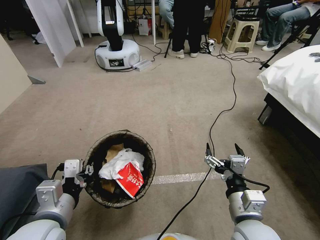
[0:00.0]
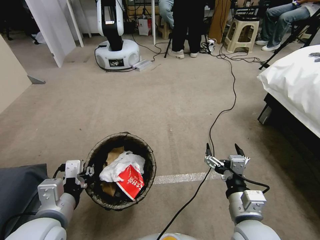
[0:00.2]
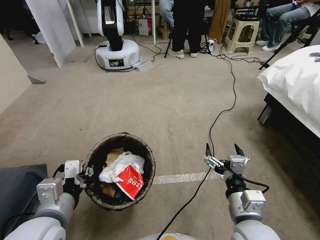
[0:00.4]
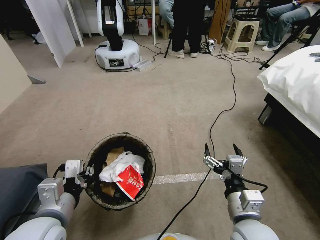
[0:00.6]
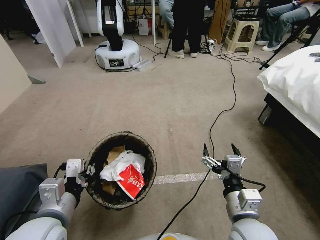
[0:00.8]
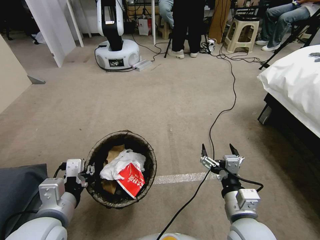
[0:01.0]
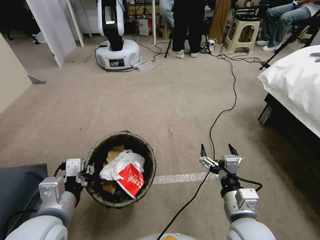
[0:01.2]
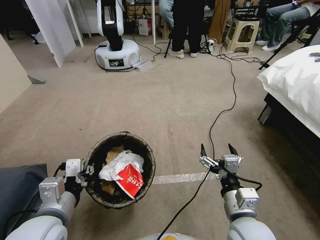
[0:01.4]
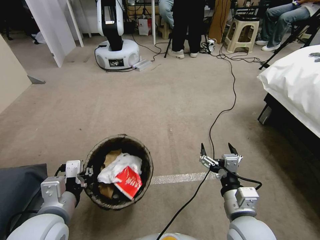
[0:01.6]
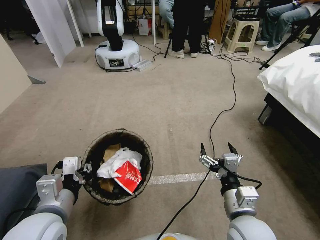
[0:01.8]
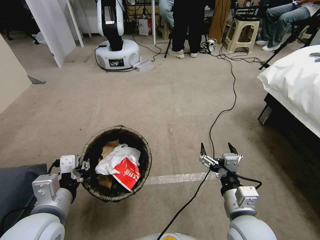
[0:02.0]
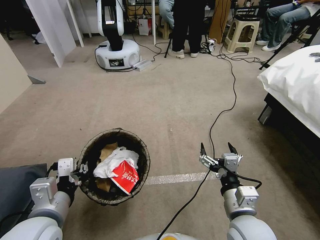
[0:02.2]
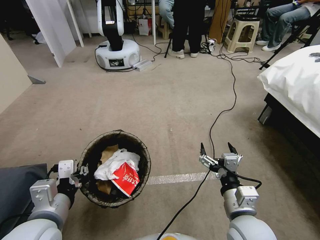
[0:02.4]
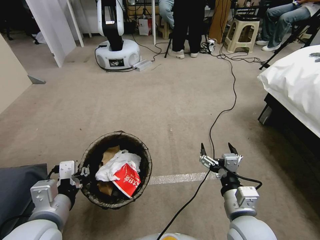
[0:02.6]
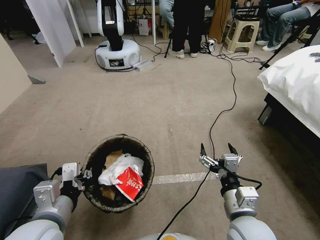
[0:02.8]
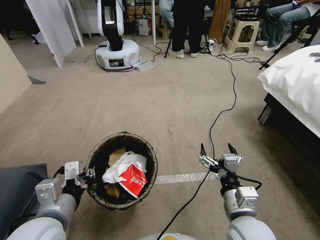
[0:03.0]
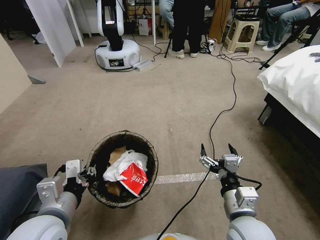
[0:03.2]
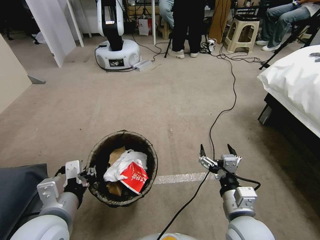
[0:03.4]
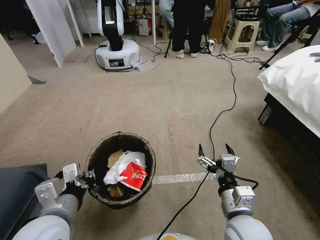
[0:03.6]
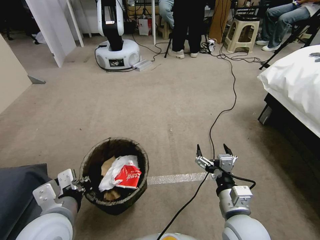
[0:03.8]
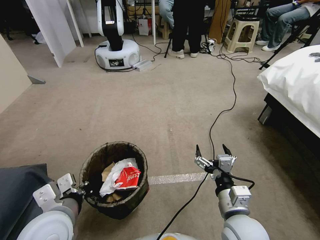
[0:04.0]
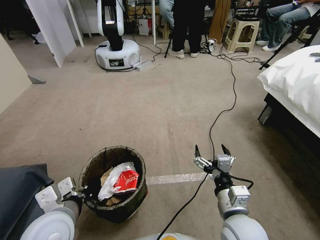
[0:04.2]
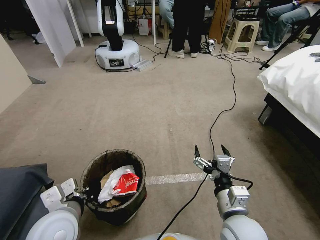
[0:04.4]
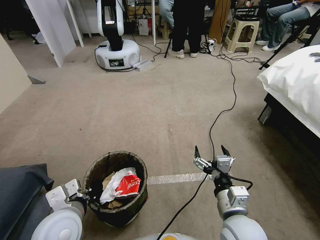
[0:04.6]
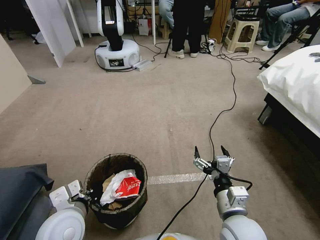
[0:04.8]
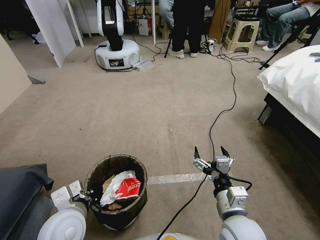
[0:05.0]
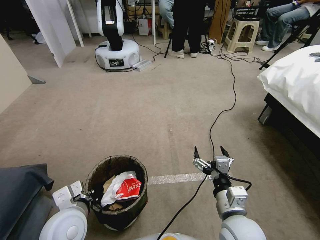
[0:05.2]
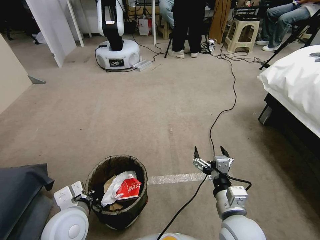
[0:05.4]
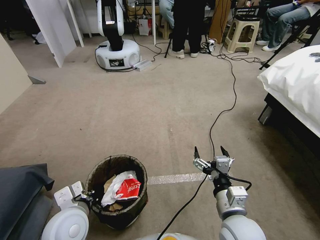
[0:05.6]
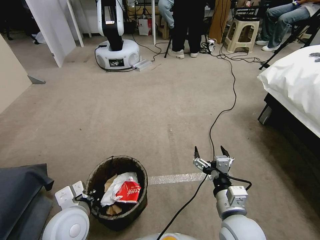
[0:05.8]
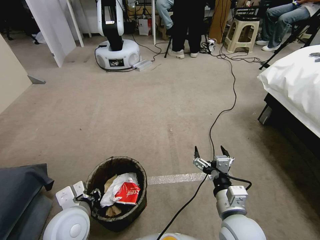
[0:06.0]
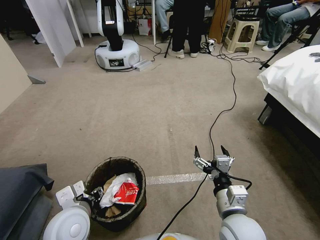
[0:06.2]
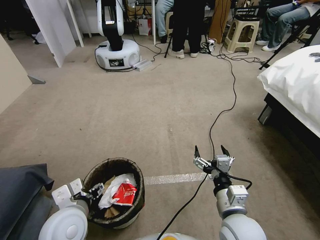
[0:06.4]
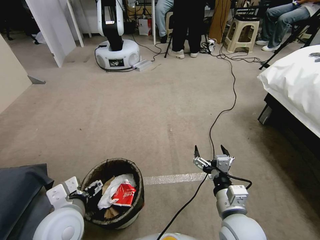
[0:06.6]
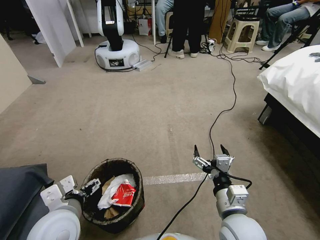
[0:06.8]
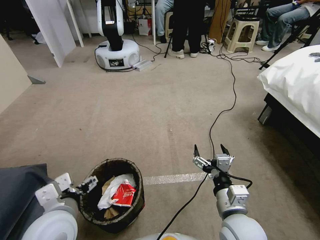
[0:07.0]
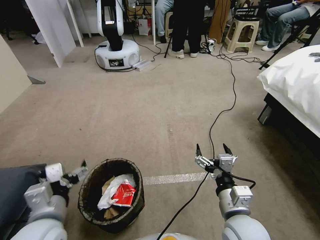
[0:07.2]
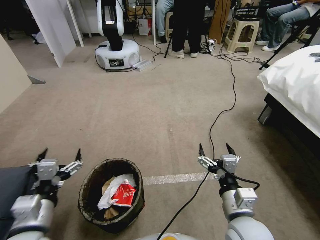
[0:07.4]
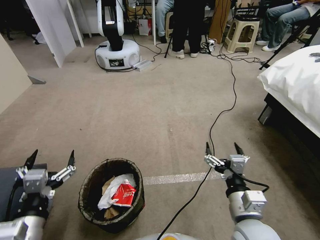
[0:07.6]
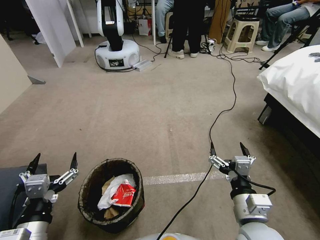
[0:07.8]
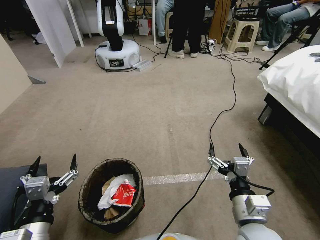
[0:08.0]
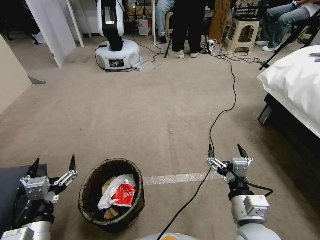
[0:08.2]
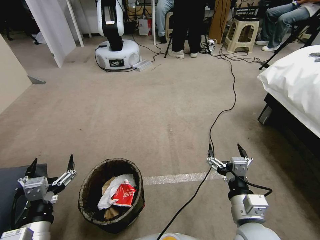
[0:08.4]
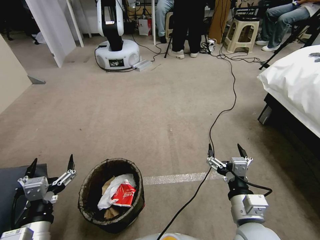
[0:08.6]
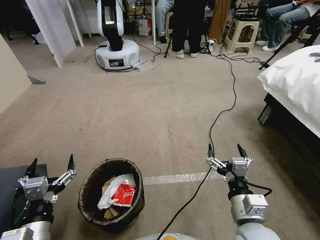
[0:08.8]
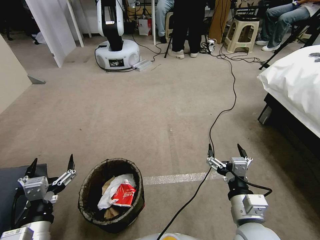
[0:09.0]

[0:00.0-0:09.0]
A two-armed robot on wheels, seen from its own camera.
Task of the whole recording: Pick up the trash bin, then pick up the garbage from the floor and place it into the trash bin.
0:00.0 to 0:03.0: Both grippers stay put.
0:03.0 to 0:04.4: The grippers make only small movements.
0:04.4 to 0:06.0: The left gripper moves downward, some 5 cm.
0:06.0 to 0:07.6: The left gripper ends up approximately 5 cm from where it was, and opens its fingers.
0:07.6 to 0:09.0: The left gripper moves backward and downward, roughly 10 cm.
